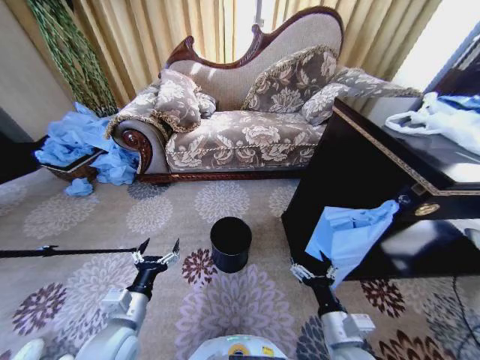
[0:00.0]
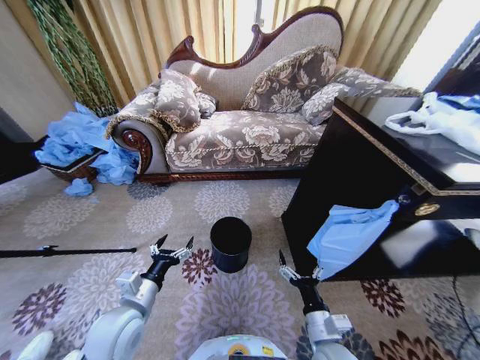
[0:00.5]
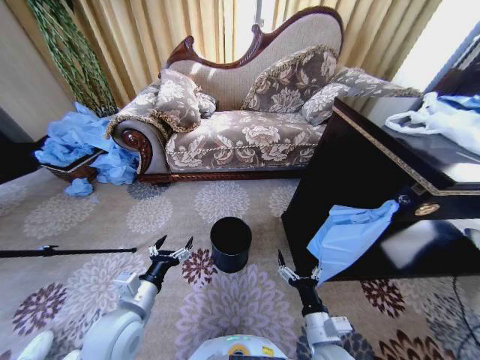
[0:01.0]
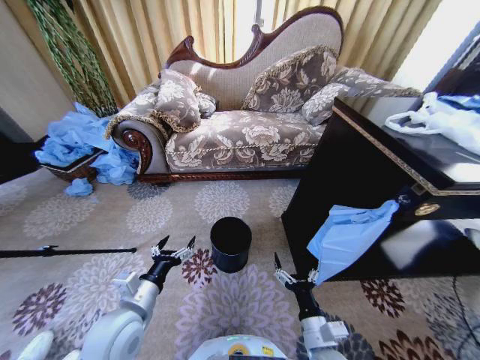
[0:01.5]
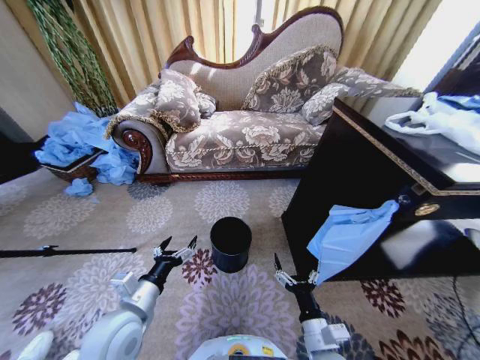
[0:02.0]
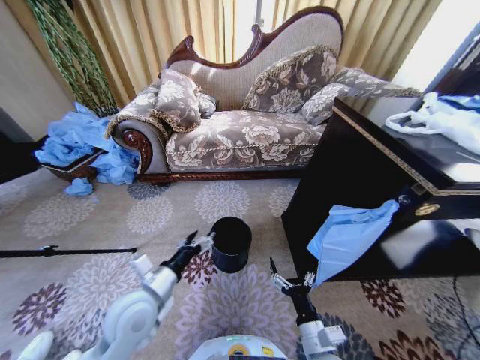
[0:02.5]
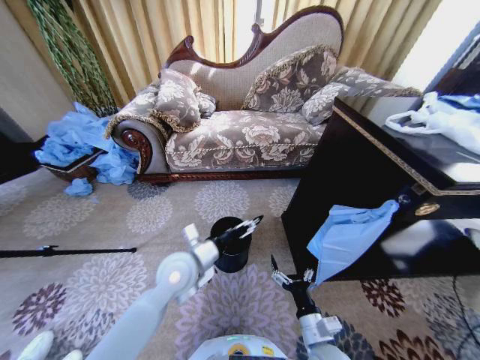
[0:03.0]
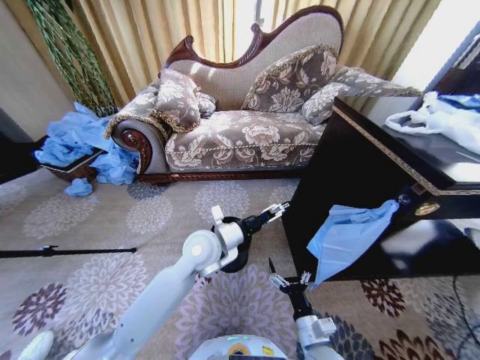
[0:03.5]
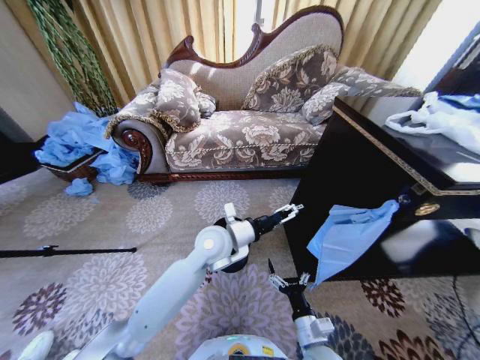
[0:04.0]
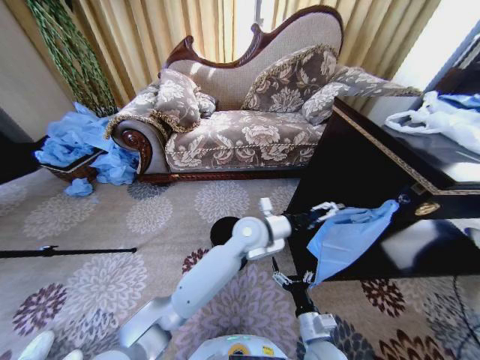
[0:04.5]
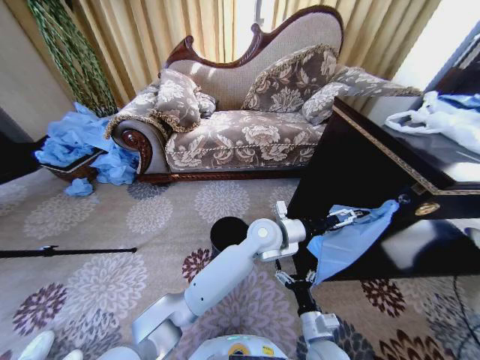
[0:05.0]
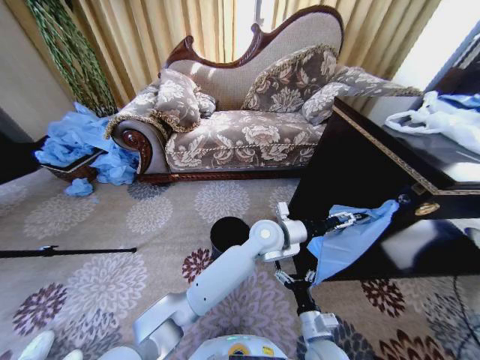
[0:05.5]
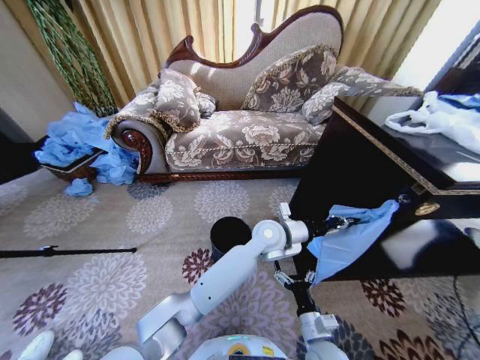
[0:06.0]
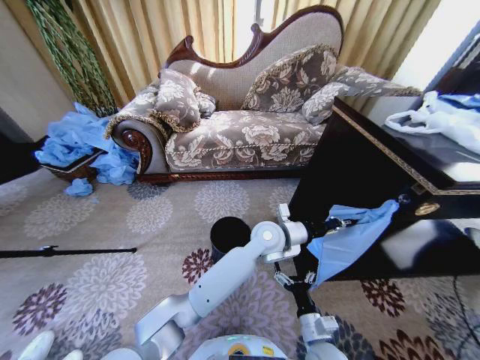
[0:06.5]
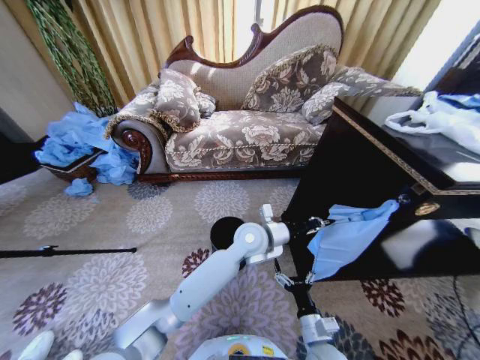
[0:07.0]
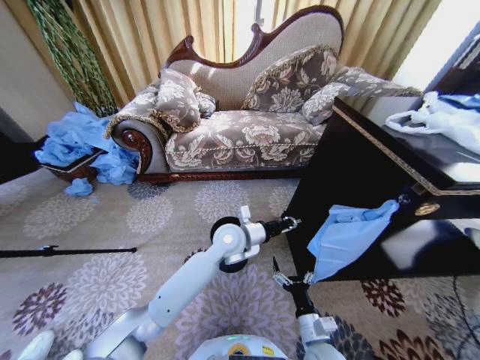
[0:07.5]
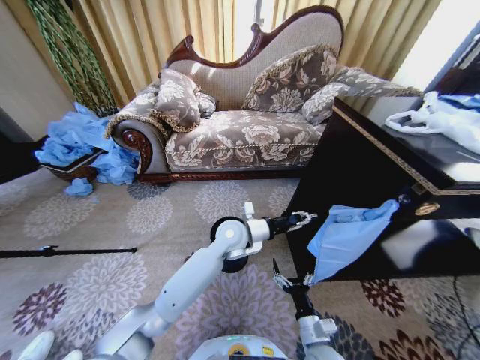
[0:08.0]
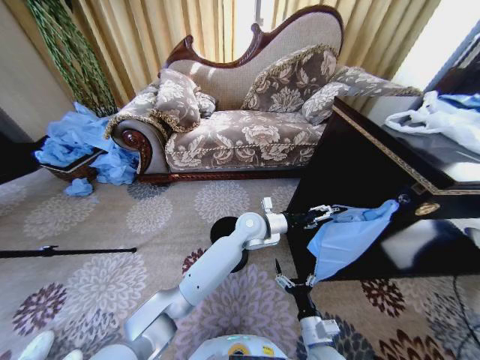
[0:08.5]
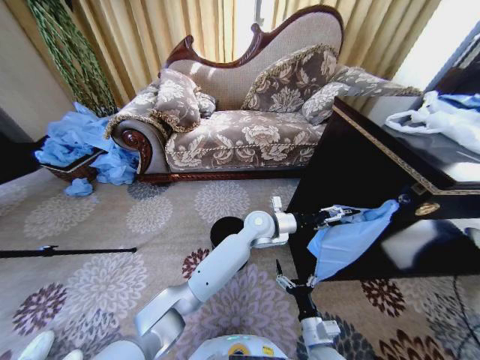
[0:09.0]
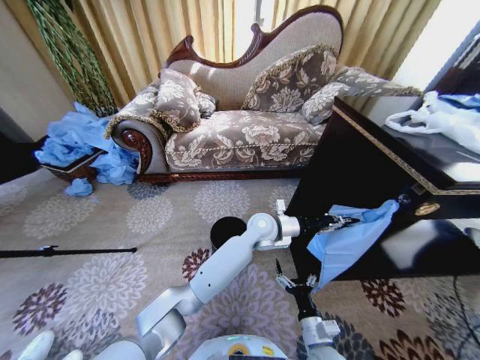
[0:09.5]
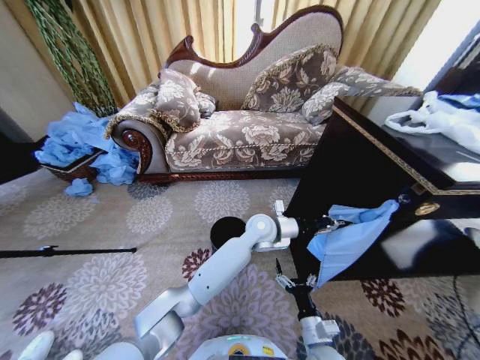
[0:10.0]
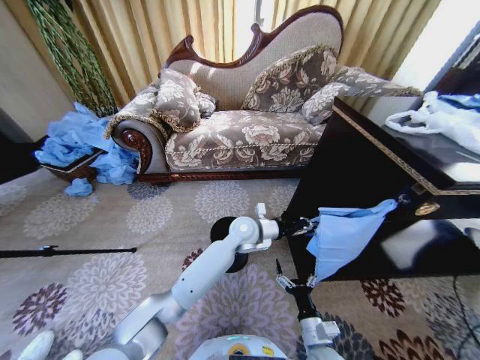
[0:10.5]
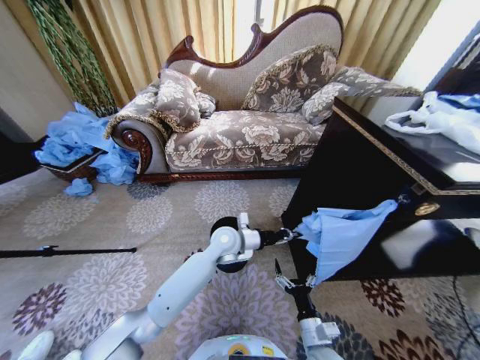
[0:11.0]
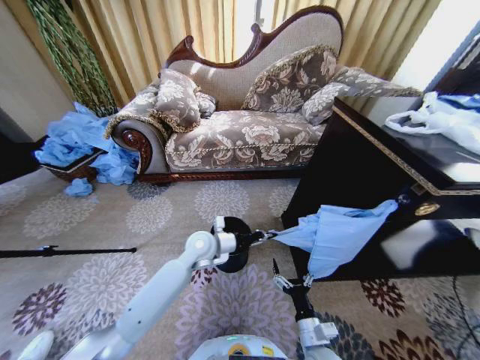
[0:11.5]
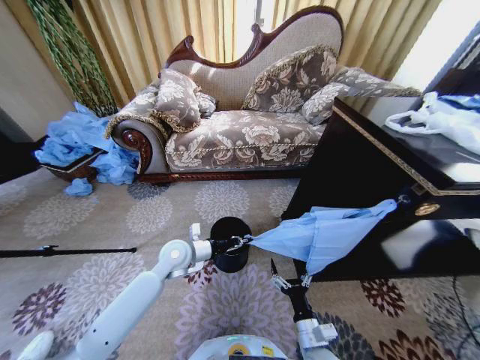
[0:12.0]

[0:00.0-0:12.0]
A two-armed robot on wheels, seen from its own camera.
Task of the whole recording: Place a garbage bag over the trash bin.
0:02.0 to 0:04.0: The left gripper travels to the right and forward by approximately 25 cm.
0:04.0 to 0:06.0: The left gripper moves to the right, approximately 15 cm, and closes.
0:06.0 to 0:08.0: The left gripper goes approximately 10 cm to the left.
0:08.0 to 0:10.0: The left gripper moves to the right, some 10 cm, and opens and closes again.
0:10.0 to 0:12.0: The left gripper shifts roughly 25 cm to the left.

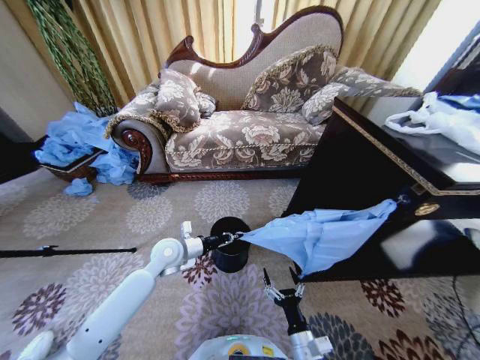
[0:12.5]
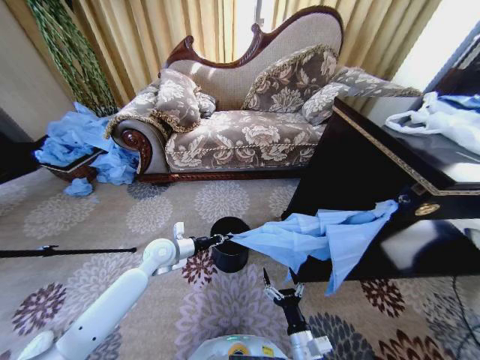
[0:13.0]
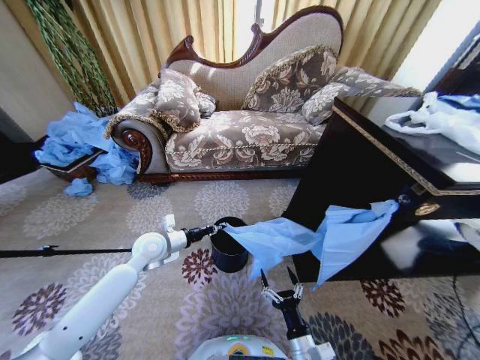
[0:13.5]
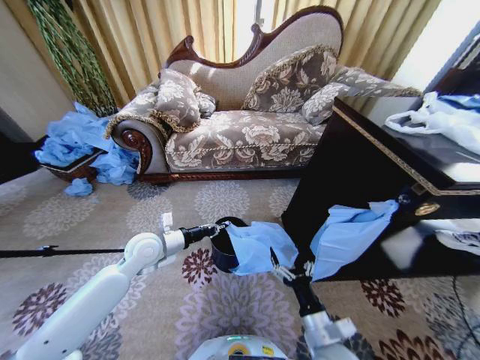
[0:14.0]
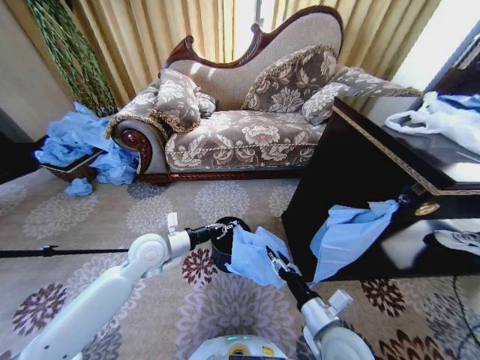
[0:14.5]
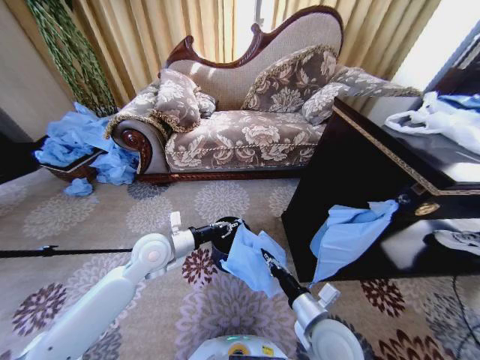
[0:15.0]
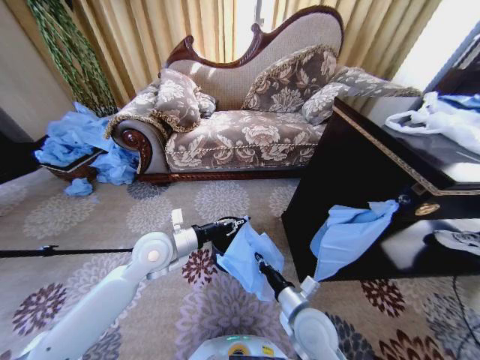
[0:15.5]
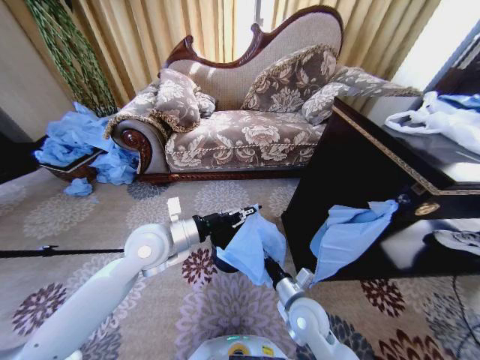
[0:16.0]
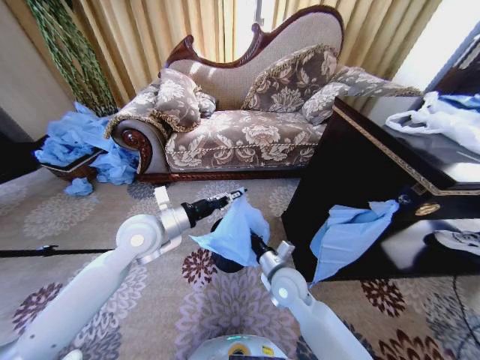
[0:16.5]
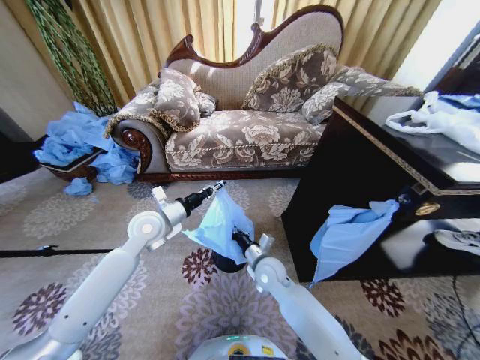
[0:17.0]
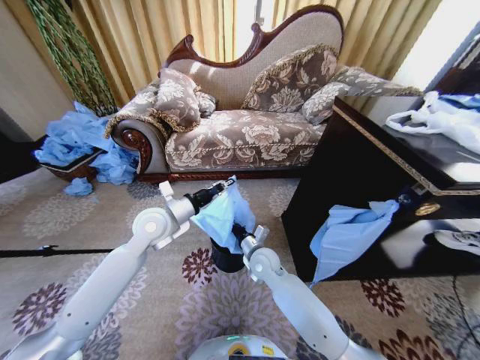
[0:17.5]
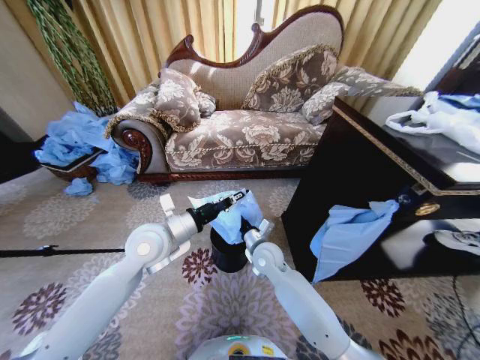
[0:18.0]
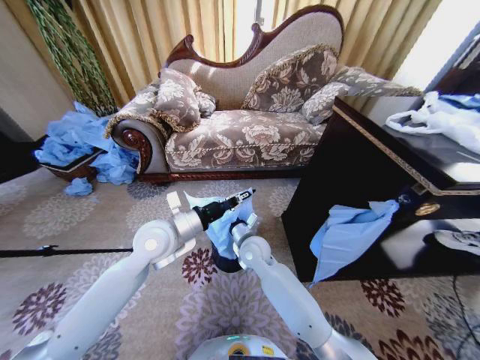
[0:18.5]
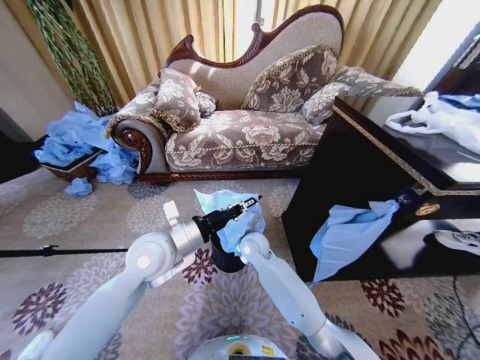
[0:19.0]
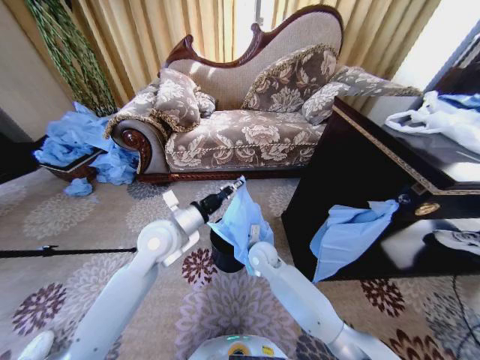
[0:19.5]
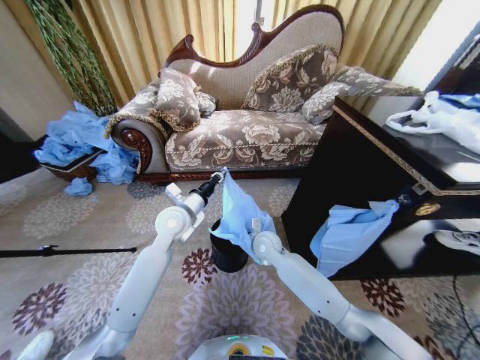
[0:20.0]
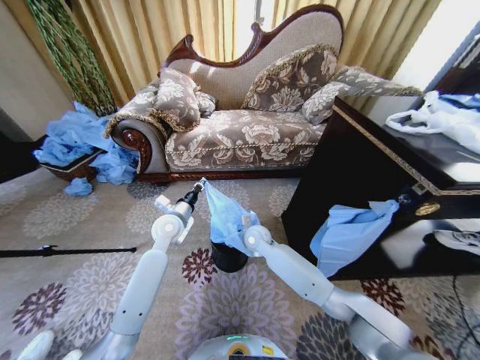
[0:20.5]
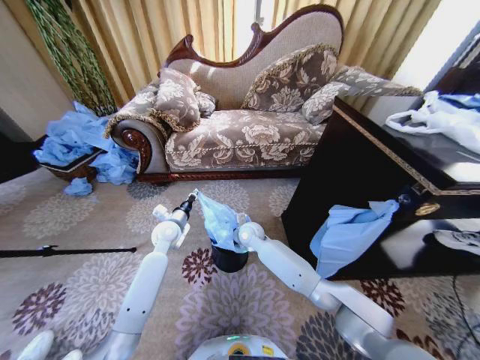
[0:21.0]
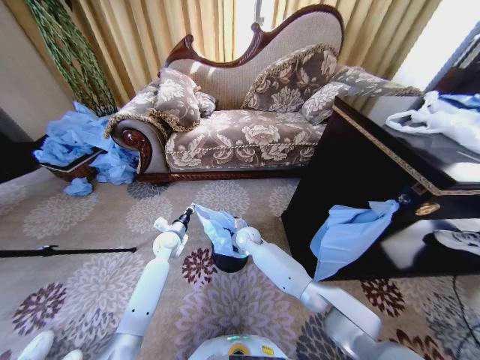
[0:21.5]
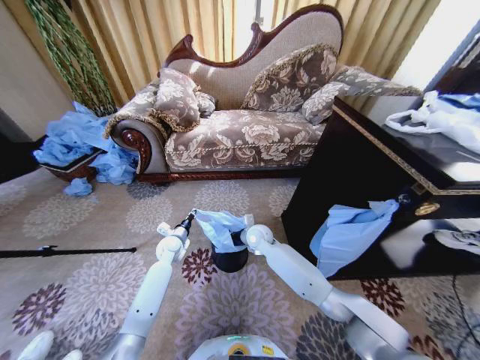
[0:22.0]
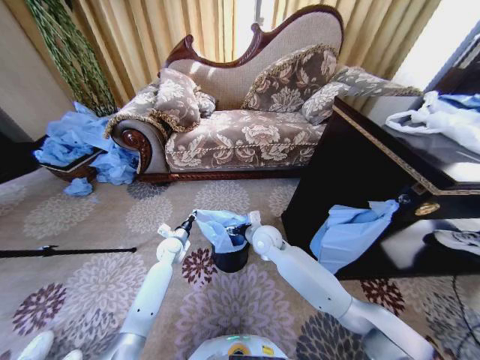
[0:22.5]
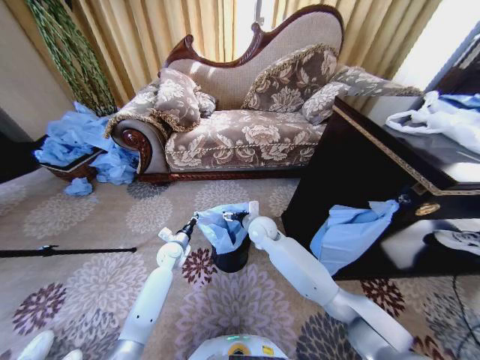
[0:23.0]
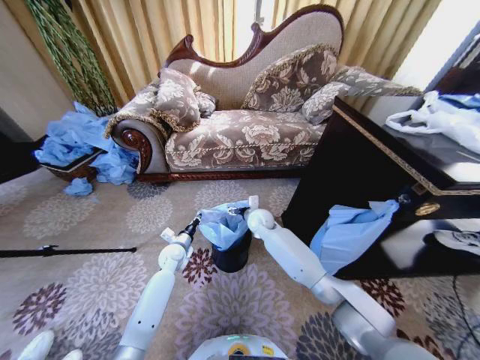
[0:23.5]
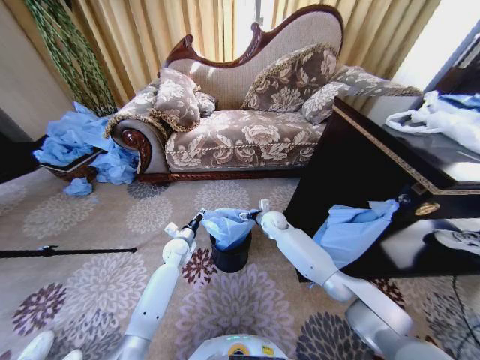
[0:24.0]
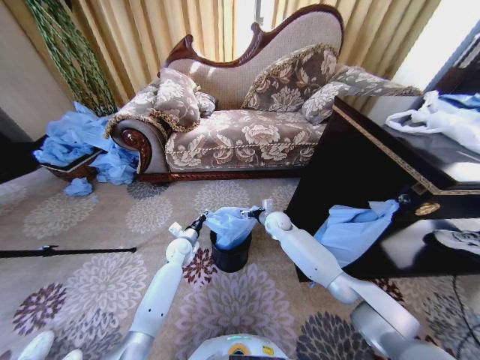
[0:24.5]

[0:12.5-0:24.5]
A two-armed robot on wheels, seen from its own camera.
Task of the whole recording: Place a garbage bag over the trash bin.
0:12.5 to 0:14.5: The left gripper shifts approximately 5 cm upward; the right gripper moves upward, some 15 cm.
0:14.5 to 0:16.5: The right gripper goes roughly 15 cm forward and to the left, and closes. Meanwhile the left gripper is displaced upward by some 10 cm.
0:16.5 to 0:18.5: The right gripper moves to the left and forward, approximately 15 cm.
0:18.5 to 0:20.5: The left gripper is displaced forward and downward by roughly 15 cm, while the right gripper heads forward, covering approximately 5 cm.
0:20.5 to 0:22.5: The left gripper is displaced downward by about 15 cm. The right gripper opens up.
0:22.5 to 0:24.5: The right gripper moves forward and to the right, approximately 10 cm.

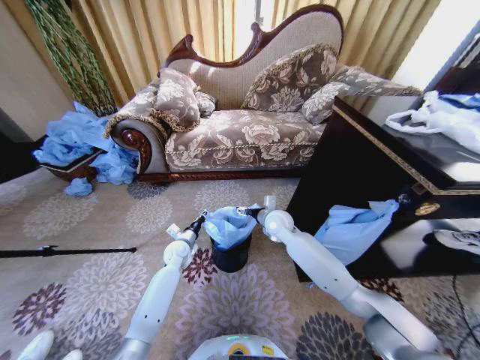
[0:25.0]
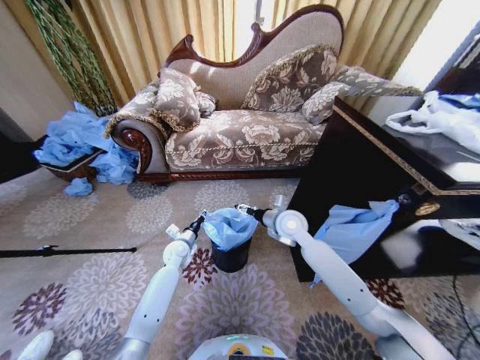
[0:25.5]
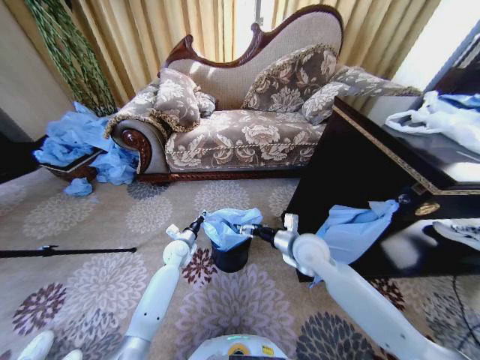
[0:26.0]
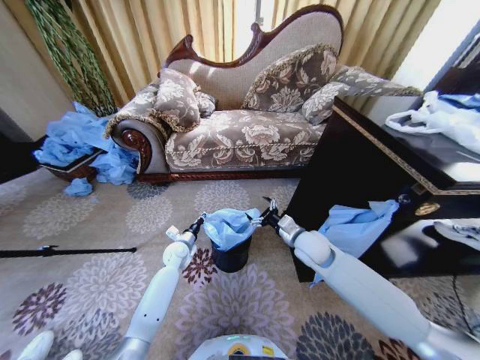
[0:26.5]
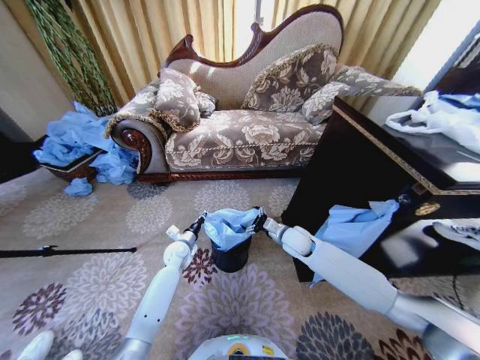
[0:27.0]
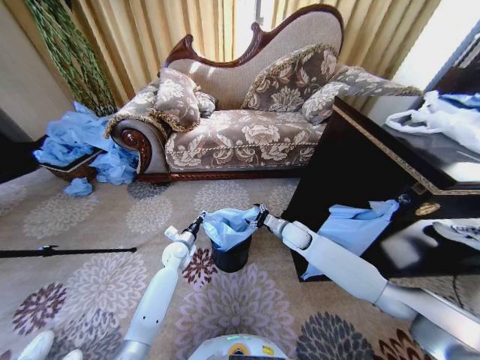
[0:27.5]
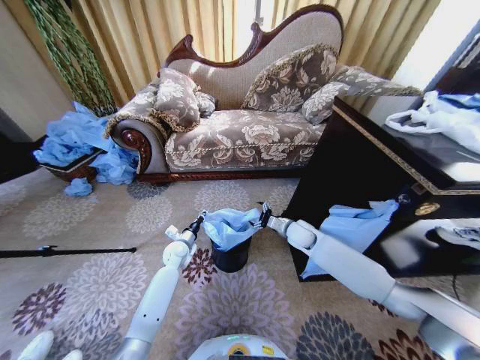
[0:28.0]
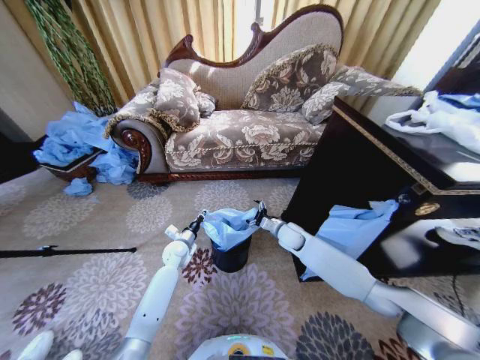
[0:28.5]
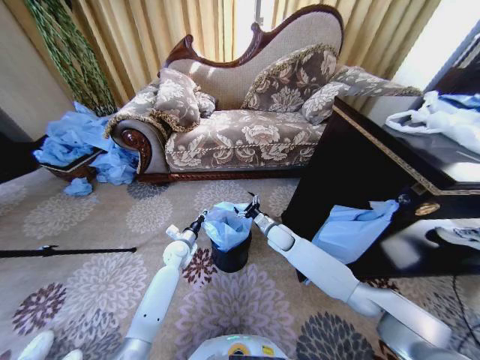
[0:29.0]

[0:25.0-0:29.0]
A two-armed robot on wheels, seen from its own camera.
Task of the whole recording: Place a garbage bag over the trash bin.
0:25.0 to 0:27.0: The right gripper heads to the right, covering some 5 cm, and reaches roughly 10 cm backward, then returns.
0:27.0 to 0:29.0: The right gripper moves some 5 cm.
